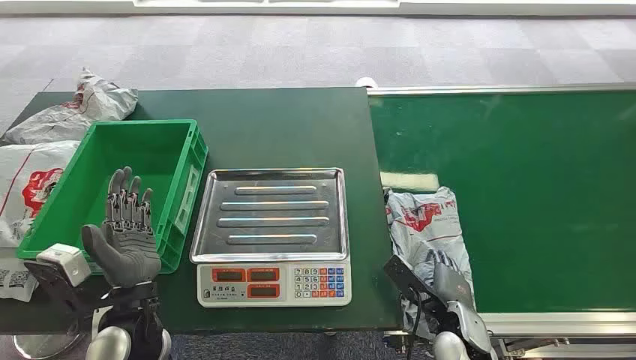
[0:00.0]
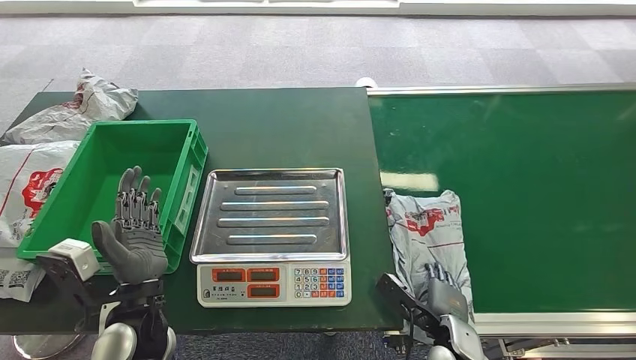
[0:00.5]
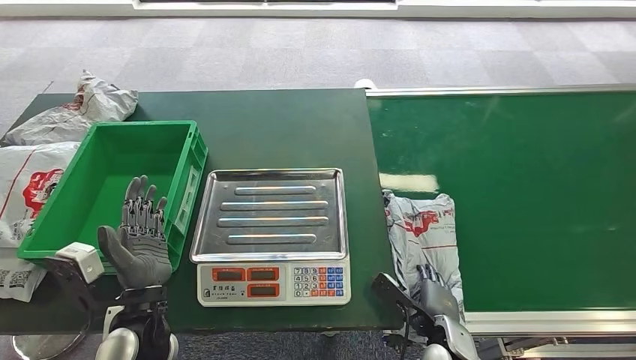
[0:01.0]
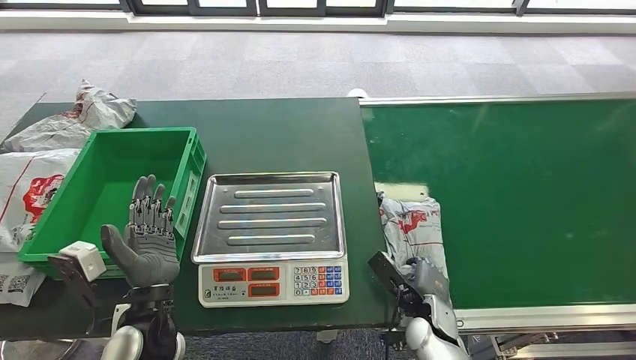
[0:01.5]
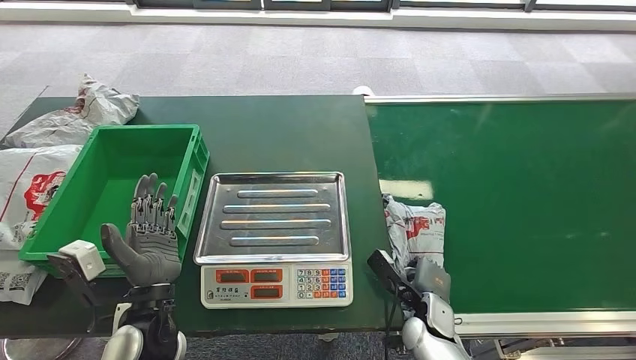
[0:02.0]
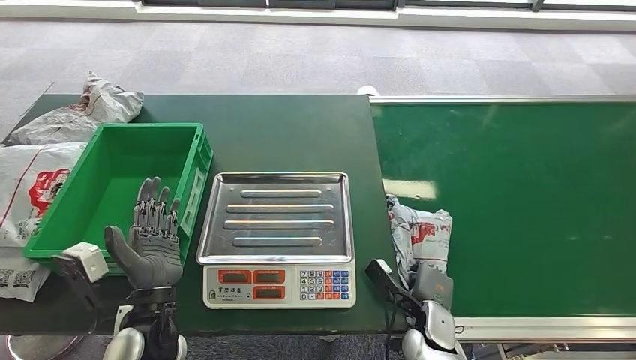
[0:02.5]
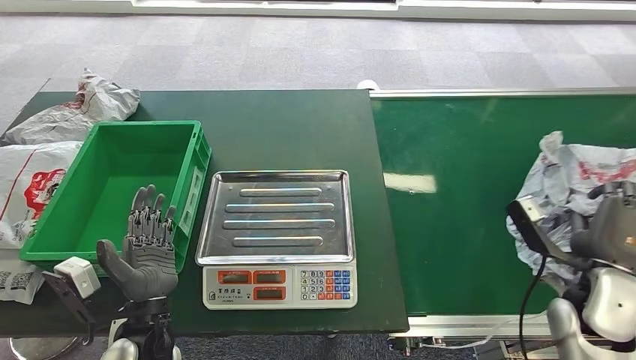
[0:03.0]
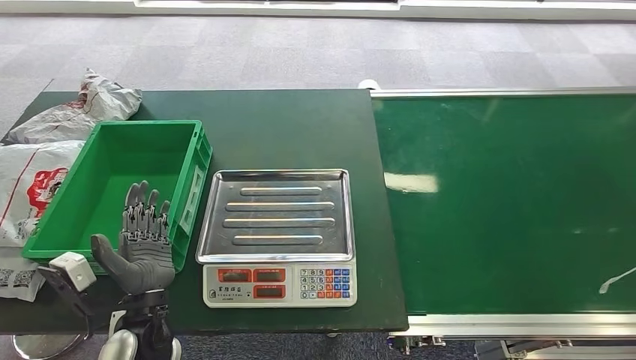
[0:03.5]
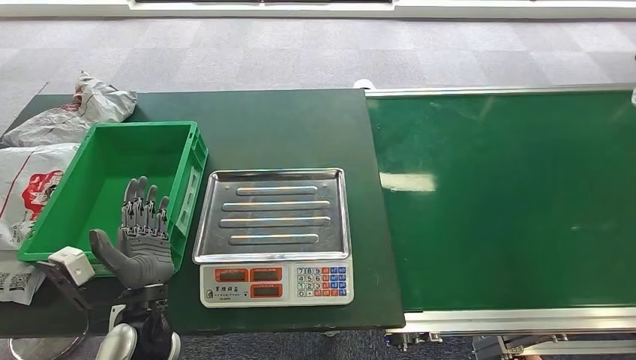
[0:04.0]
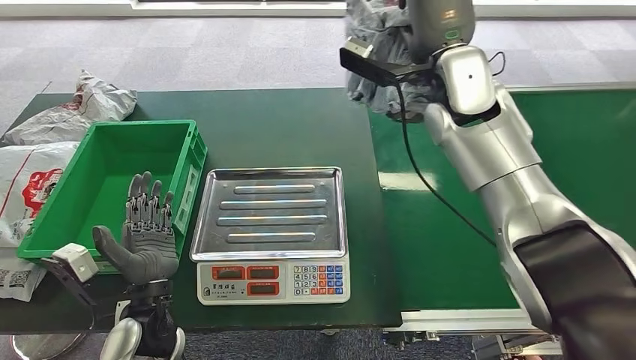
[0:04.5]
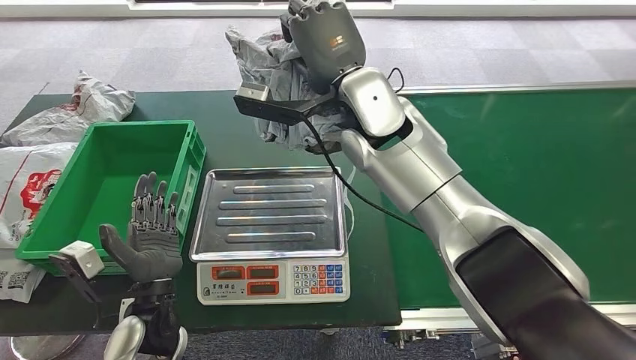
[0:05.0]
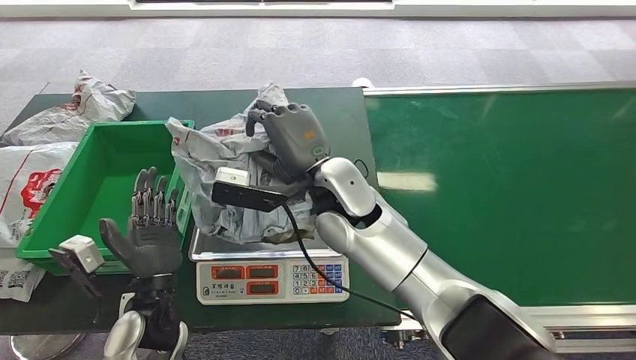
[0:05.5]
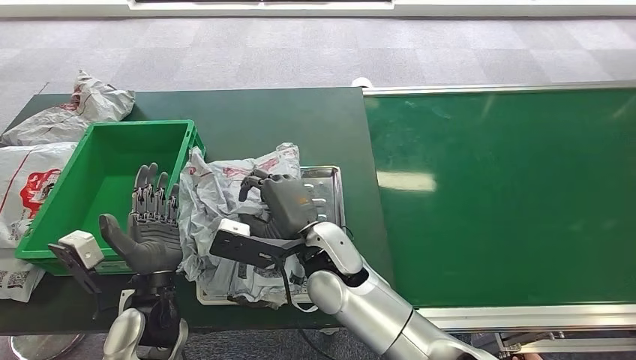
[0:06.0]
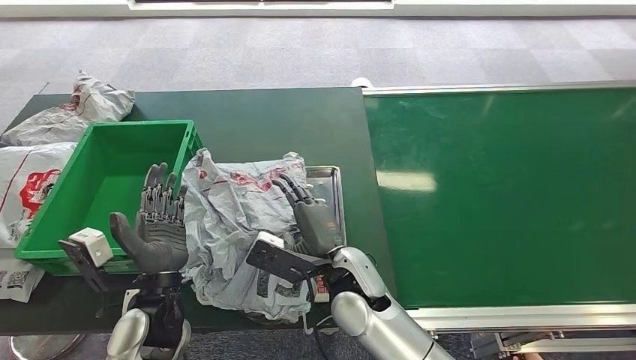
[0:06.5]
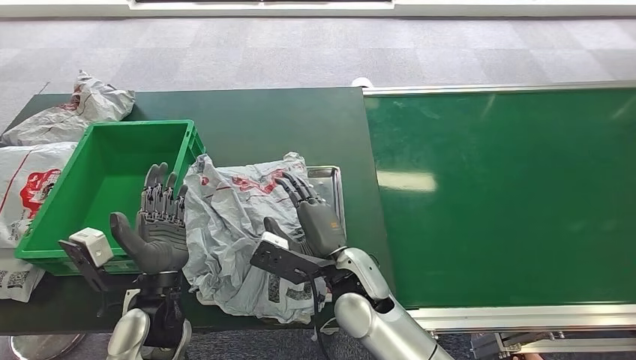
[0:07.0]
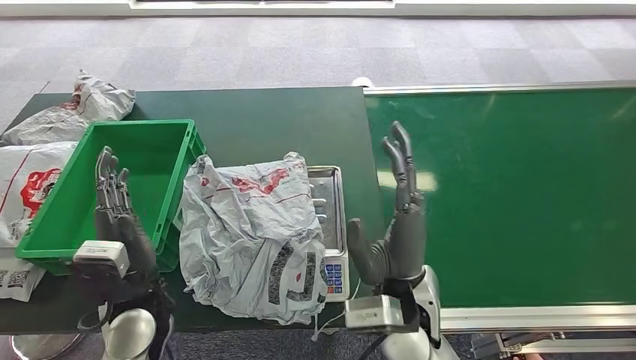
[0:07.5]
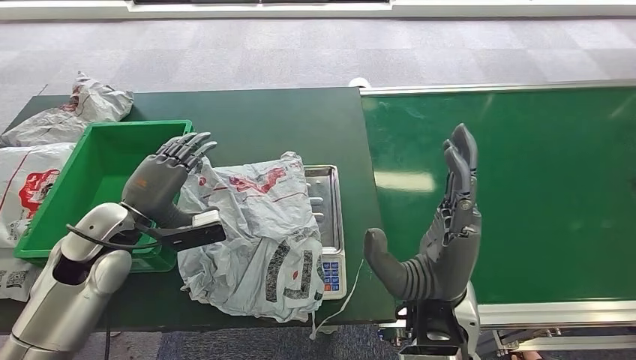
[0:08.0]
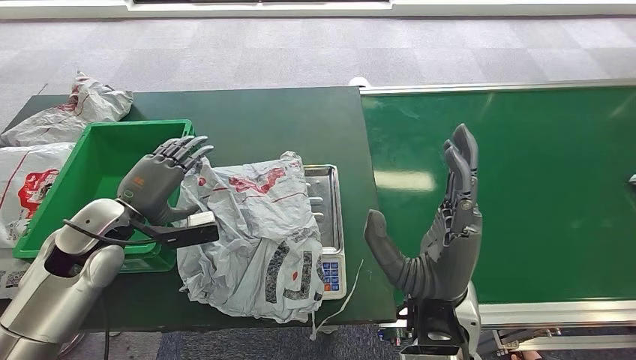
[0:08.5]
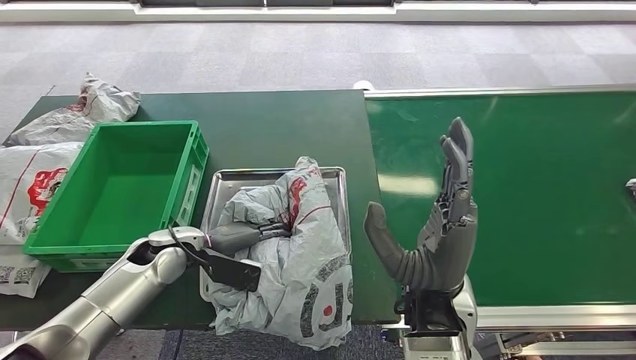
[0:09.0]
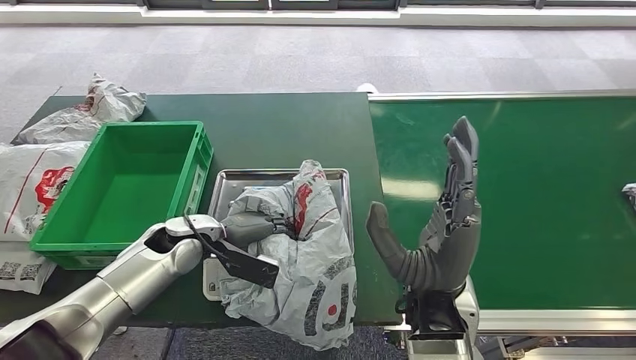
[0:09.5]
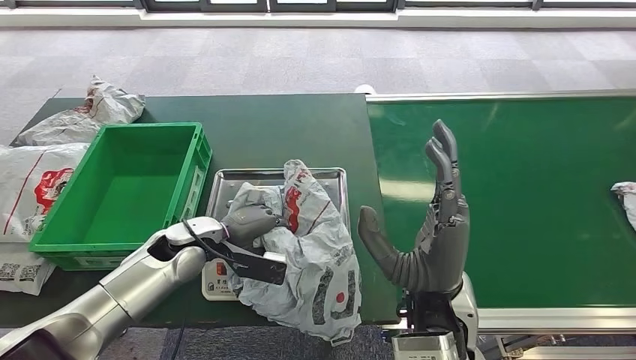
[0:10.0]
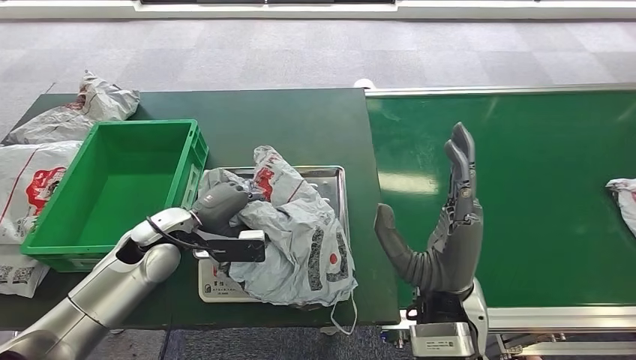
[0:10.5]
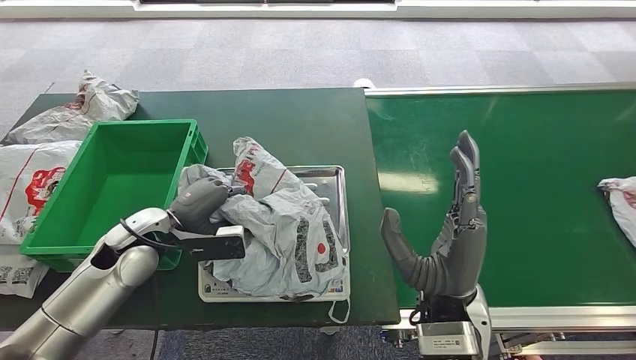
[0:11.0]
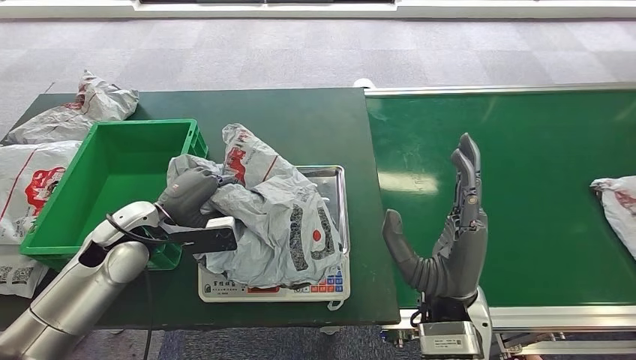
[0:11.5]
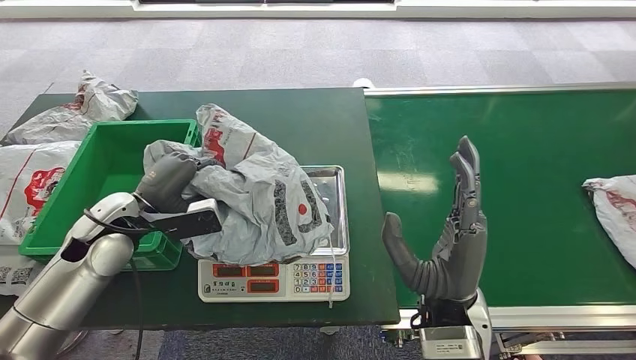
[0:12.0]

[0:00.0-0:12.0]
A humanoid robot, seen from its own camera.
Step, 0:00.0 to 0:04.0: Pick up the package from the conveyor belt.
Step, 0:04.5 to 0:08.0: Place the package onto the inbound machine.

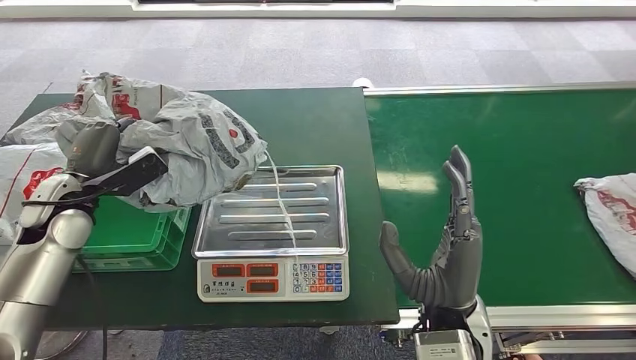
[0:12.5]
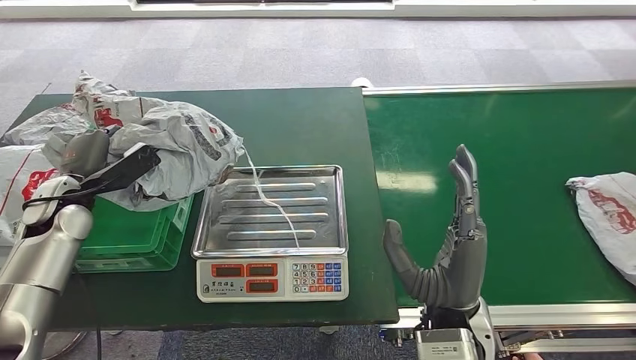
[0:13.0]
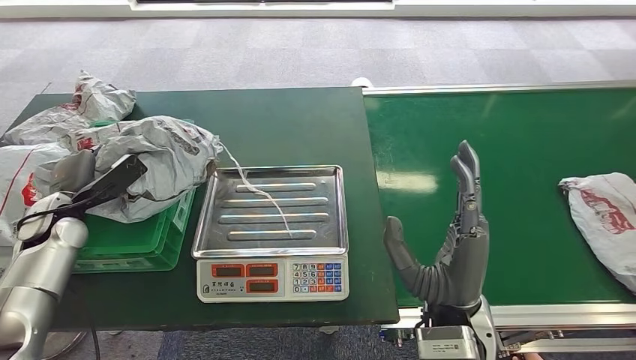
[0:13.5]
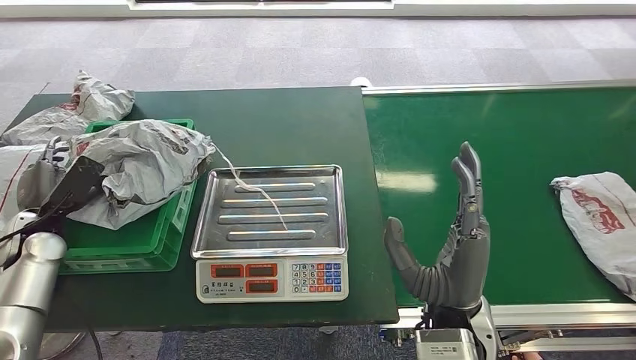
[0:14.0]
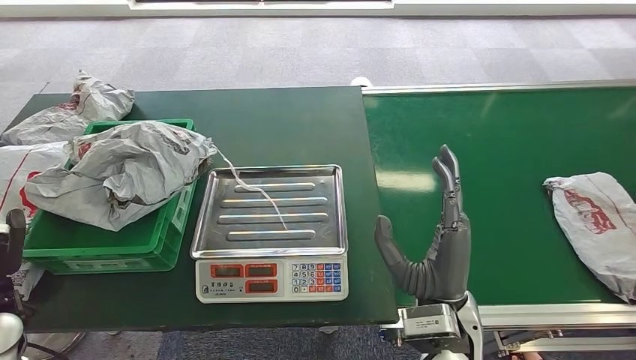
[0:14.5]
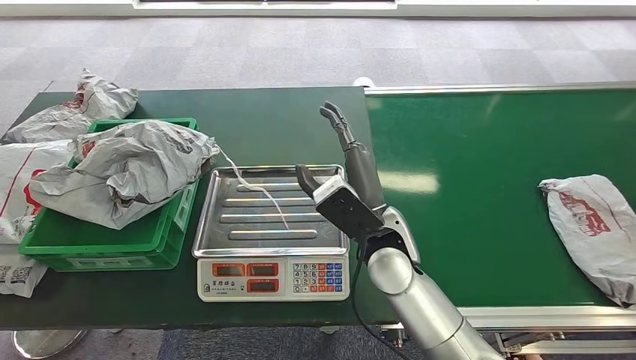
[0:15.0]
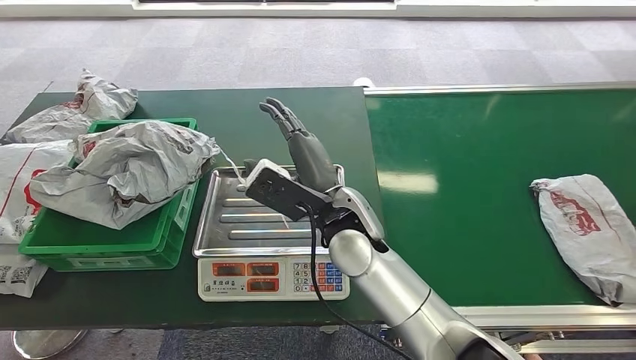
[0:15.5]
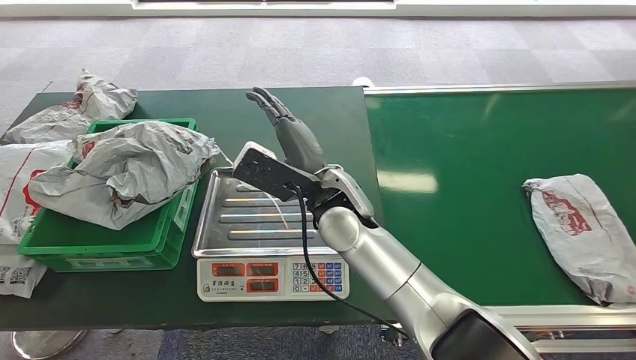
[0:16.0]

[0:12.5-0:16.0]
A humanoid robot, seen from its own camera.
Step, 0:13.5 to 0:16.0: Place the package into the parcel locker.
